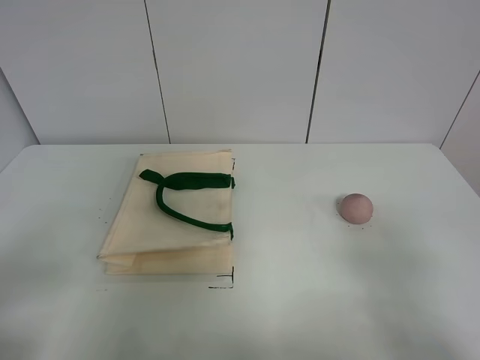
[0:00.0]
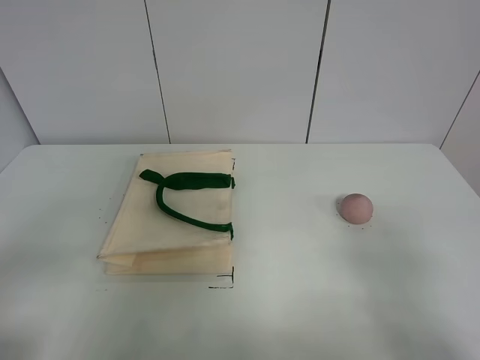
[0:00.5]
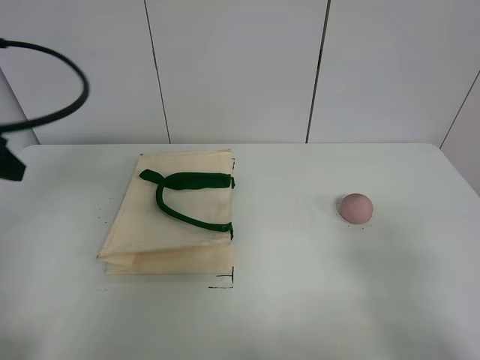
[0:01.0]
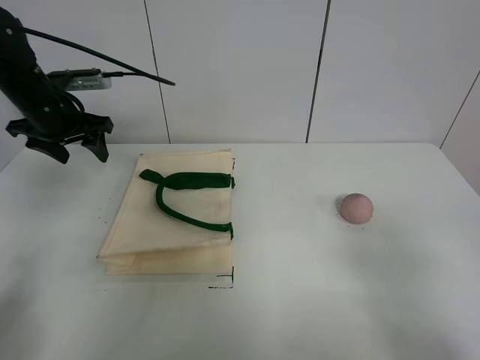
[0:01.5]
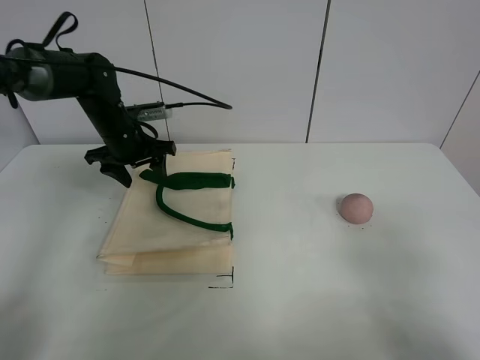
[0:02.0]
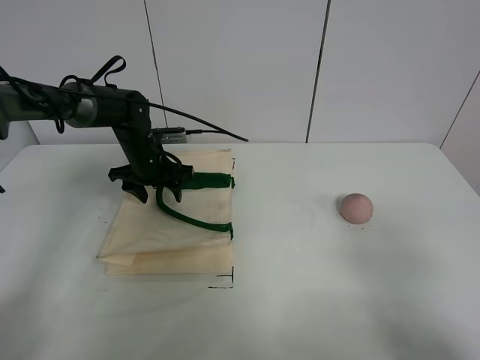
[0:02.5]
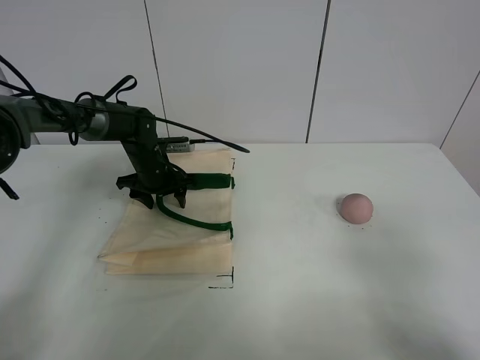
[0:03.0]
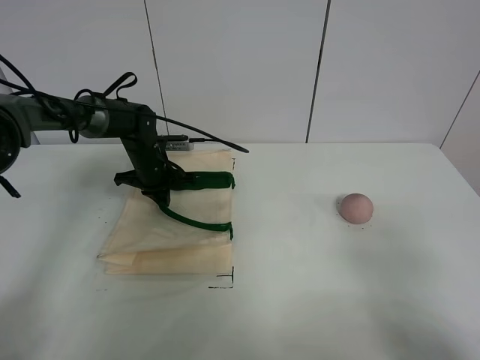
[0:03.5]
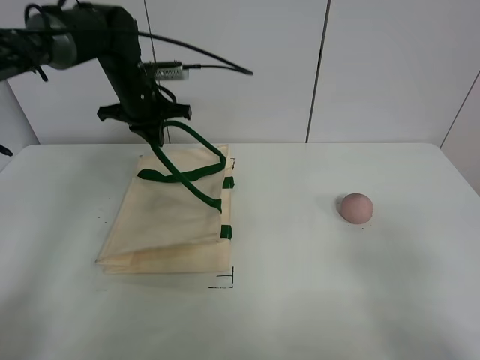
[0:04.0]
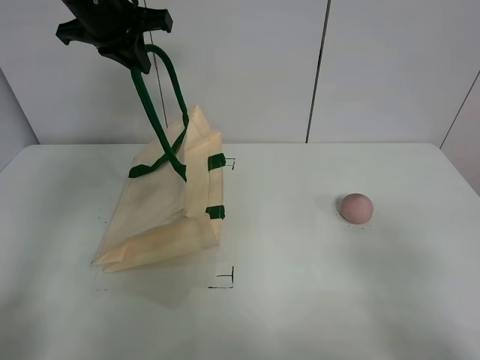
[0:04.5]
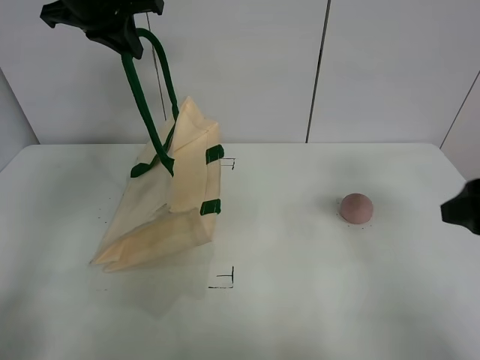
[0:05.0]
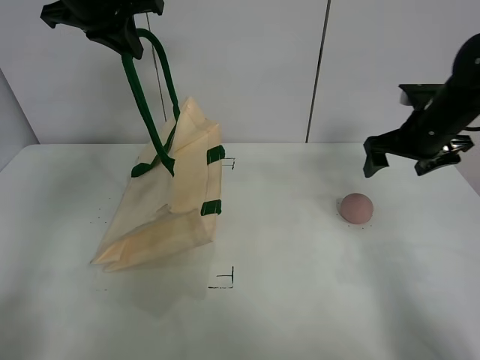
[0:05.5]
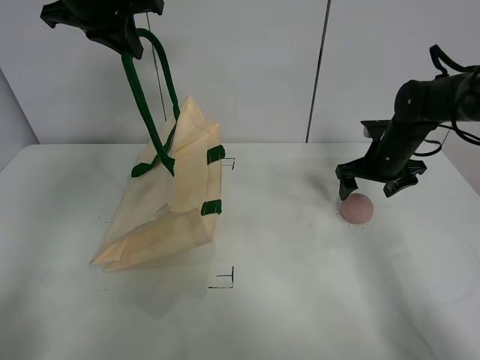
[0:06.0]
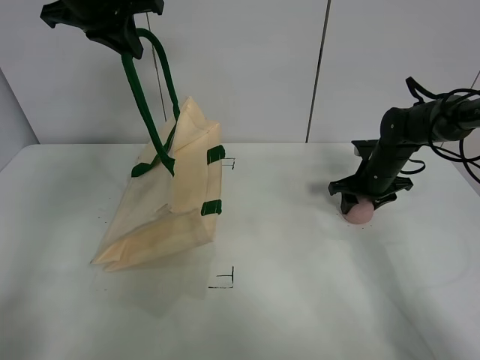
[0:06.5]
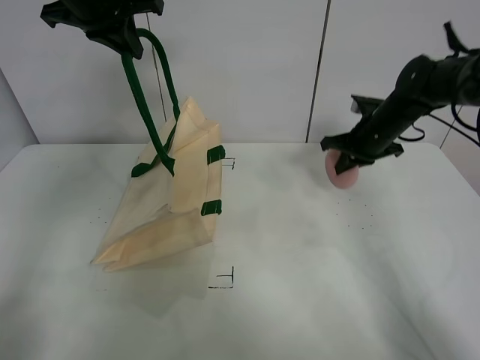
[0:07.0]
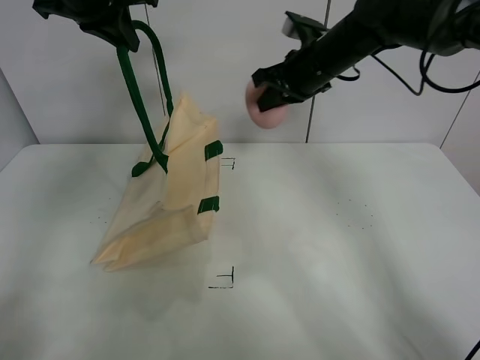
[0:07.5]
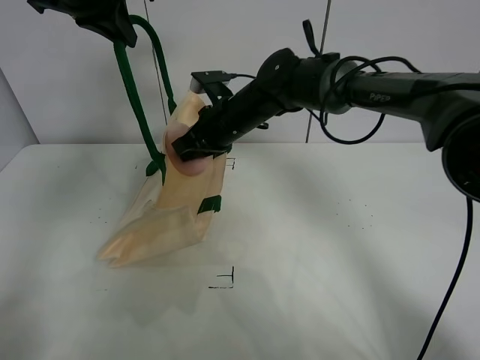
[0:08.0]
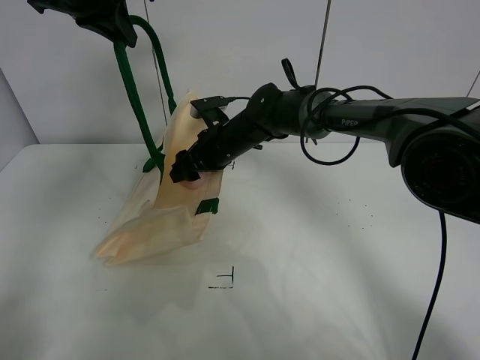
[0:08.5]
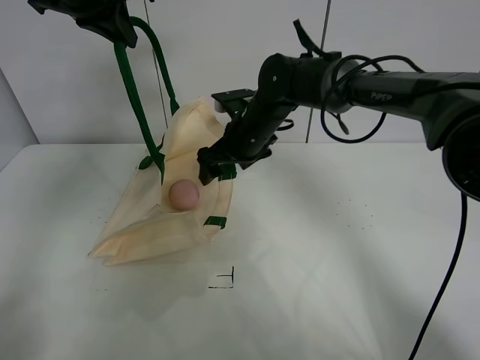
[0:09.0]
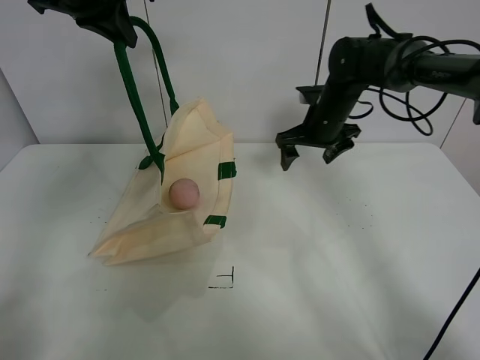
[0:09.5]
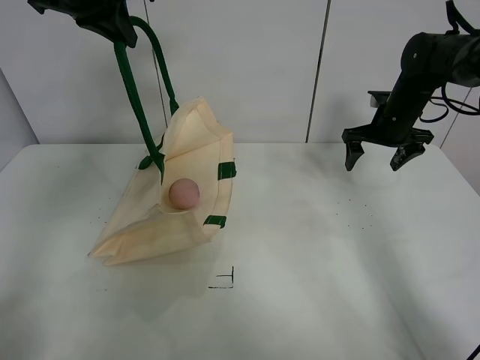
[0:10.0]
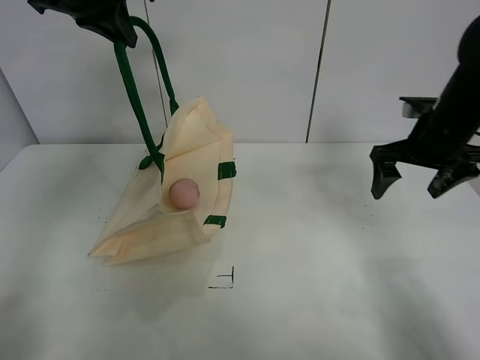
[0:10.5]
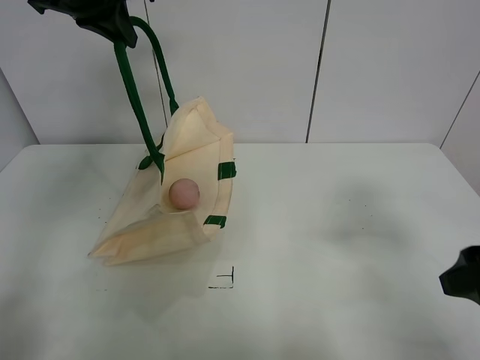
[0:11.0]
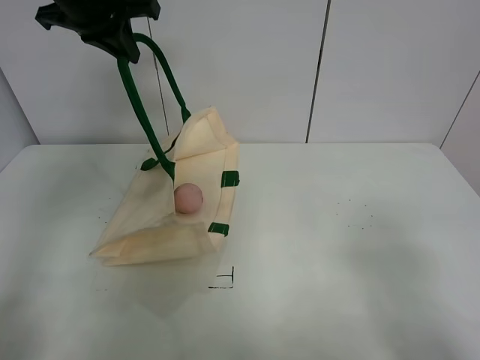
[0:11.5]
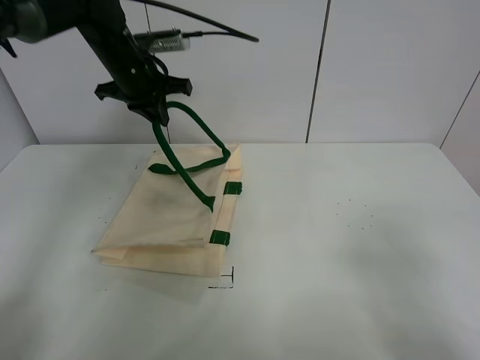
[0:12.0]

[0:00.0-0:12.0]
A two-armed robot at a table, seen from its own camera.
Task of the whole recording: open the white linen bag and put the peach in the bag.
Step, 0:00.0 to 0:04.5: Lift the handbag with left gripper.
Step, 0:05.0 to 0:06.5: Grasp the peach with right gripper.
Step, 0:07.0 to 0:08.5: Place the peach in the handbag with right gripper.
0:02.0 to 0:04.0: The left gripper is displaced to the right by roughly 5 cm, moves some 10 cm downward and comes back, and closes up.
0:04.0 to 0:06.0: The left gripper moves upward, about 20 cm; the right gripper travels forward by about 40 cm.
0:06.0 to 0:08.0: The right gripper travels to the left by approximately 25 cm, and closes.
0:08.0 to 0:10.0: The right gripper is displaced to the right by some 25 cm, and opens.
0:10.0 to 0:12.0: The right gripper heads backward, covering roughly 50 cm; the left gripper heads downward, covering approximately 10 cm.

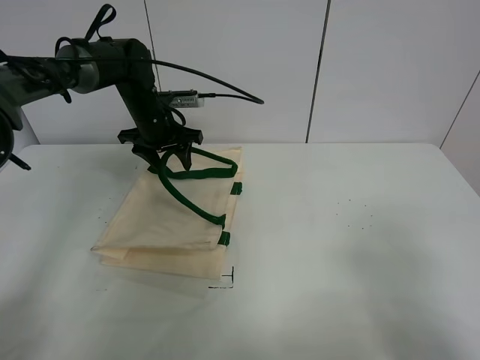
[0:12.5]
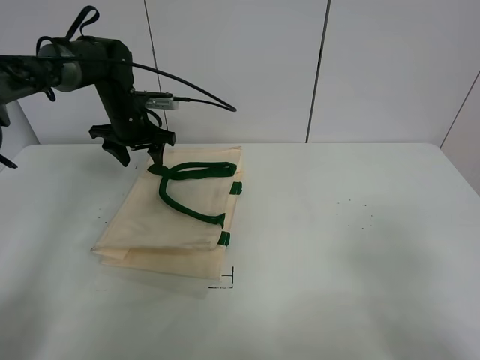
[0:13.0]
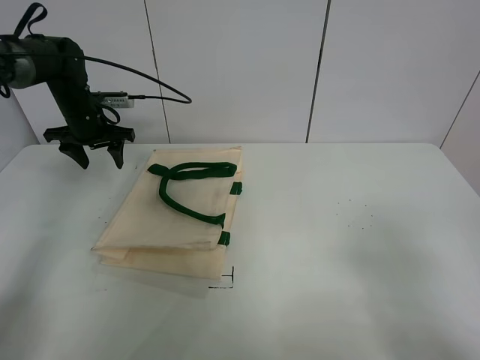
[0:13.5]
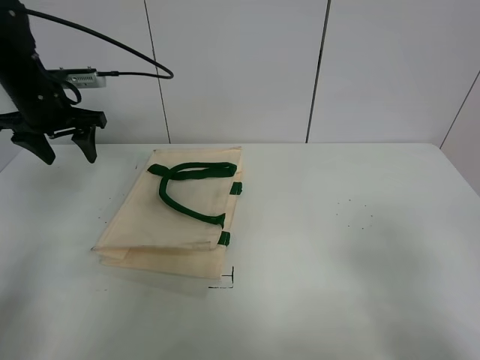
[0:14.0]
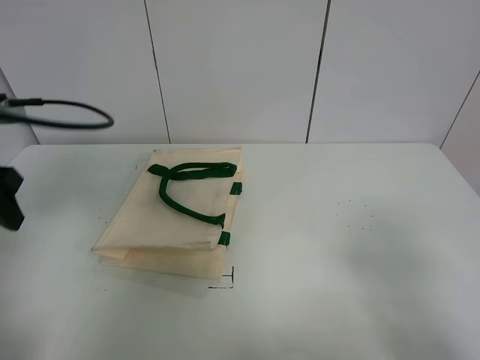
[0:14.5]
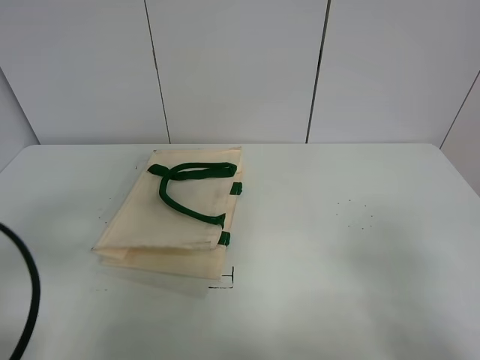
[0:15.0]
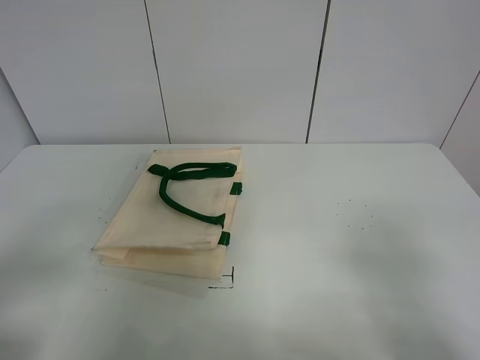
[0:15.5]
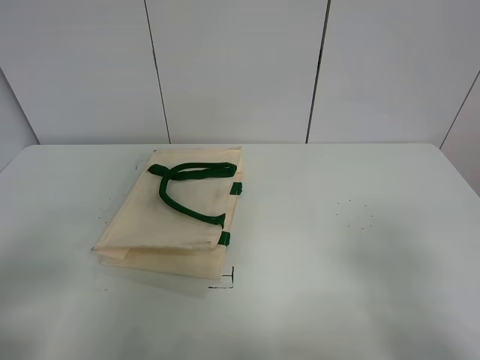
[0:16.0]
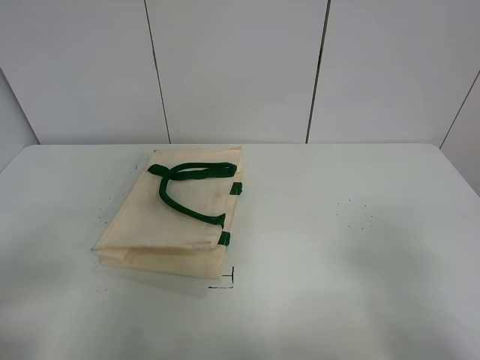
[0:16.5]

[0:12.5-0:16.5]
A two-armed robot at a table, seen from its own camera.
Task of the whole recording: open the white linen bag and put the peach in the bag.
0:12.5 to 0:14.5: The left gripper travels backward, to the left and upward by approximately 30 cm.
0:14.5 to 0:16.5: The left gripper heads backward, covering about 25 cm.
